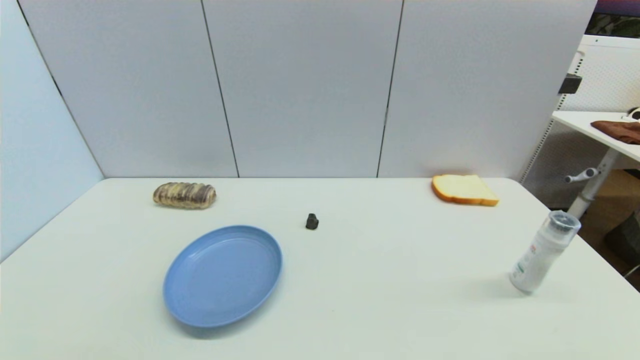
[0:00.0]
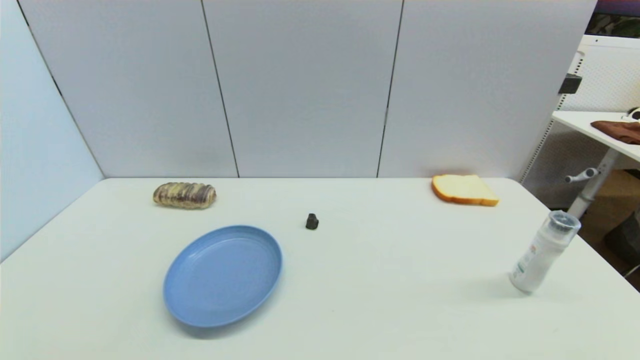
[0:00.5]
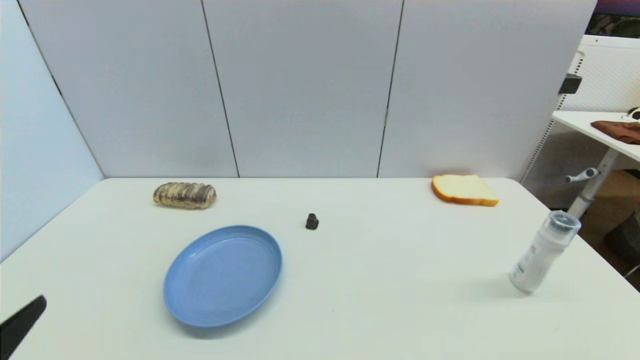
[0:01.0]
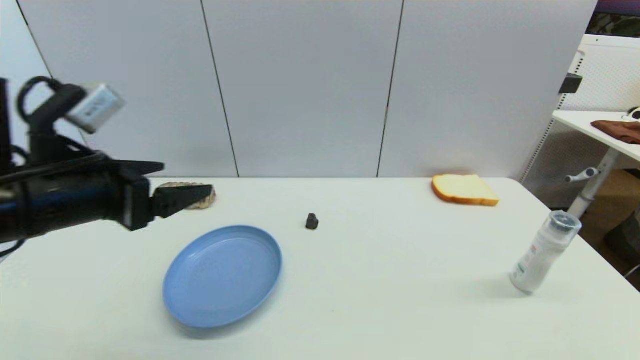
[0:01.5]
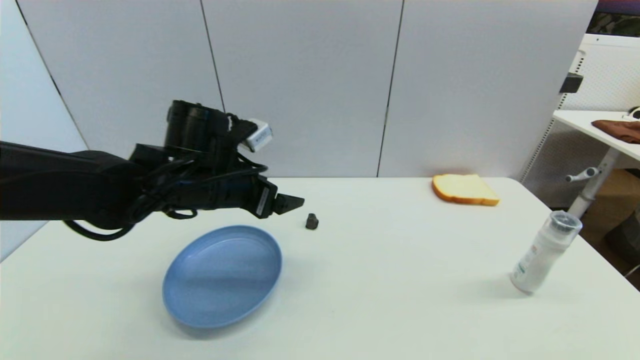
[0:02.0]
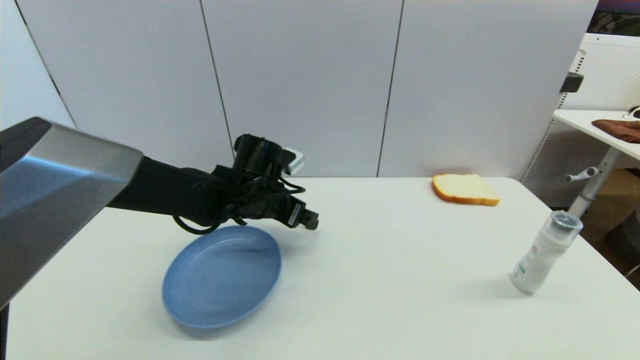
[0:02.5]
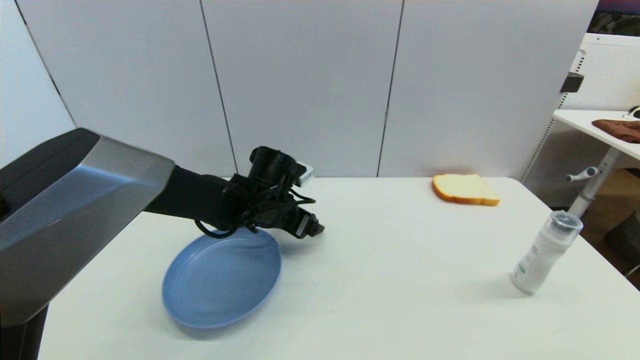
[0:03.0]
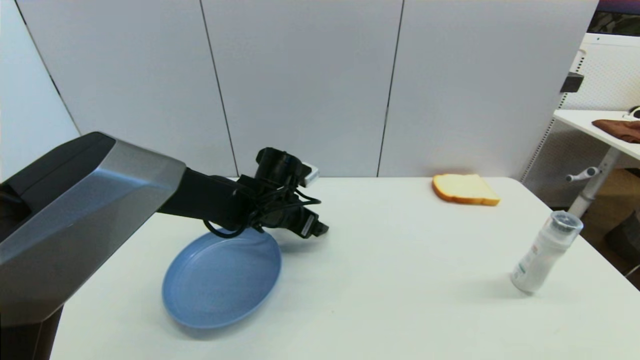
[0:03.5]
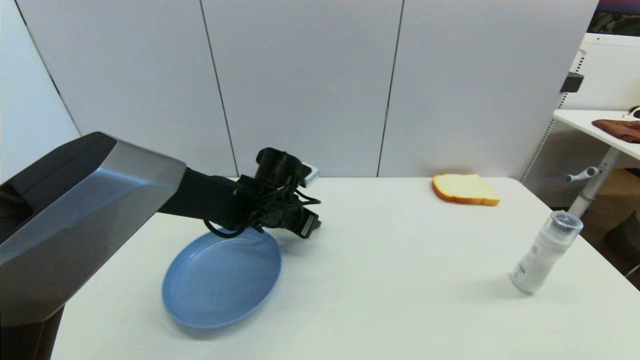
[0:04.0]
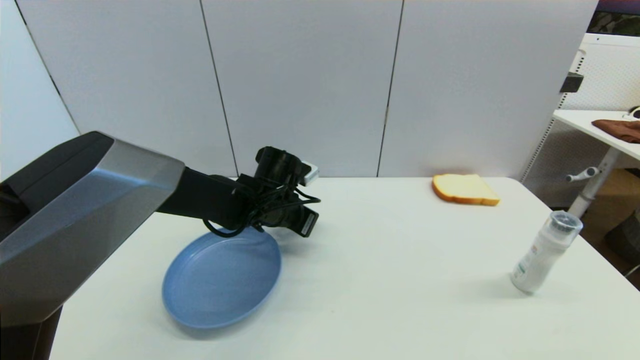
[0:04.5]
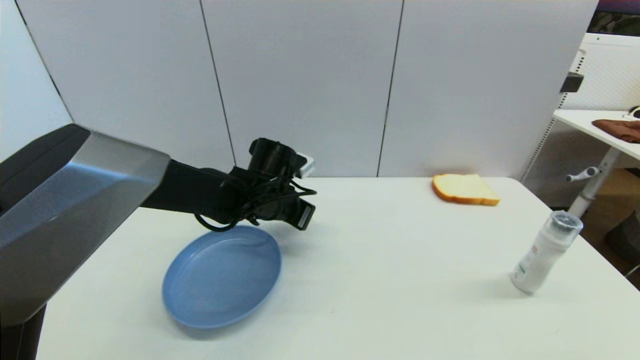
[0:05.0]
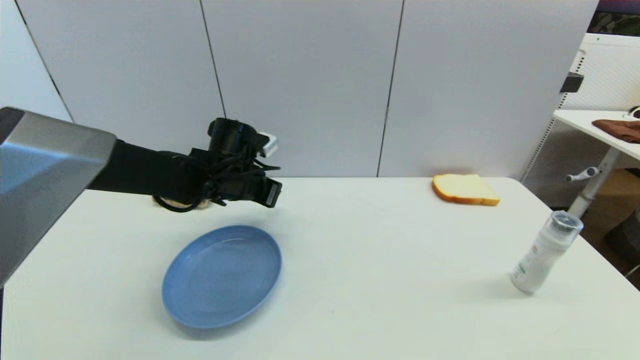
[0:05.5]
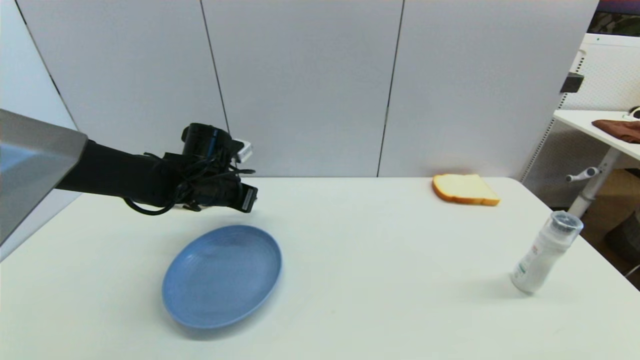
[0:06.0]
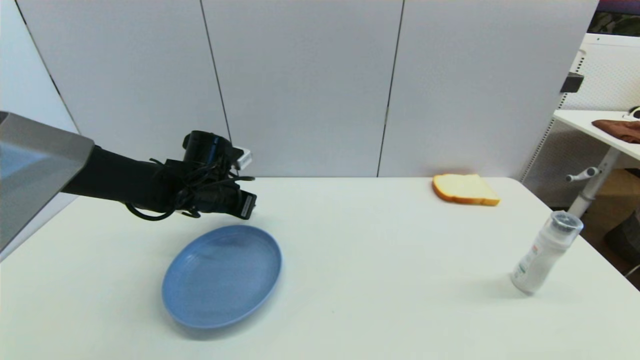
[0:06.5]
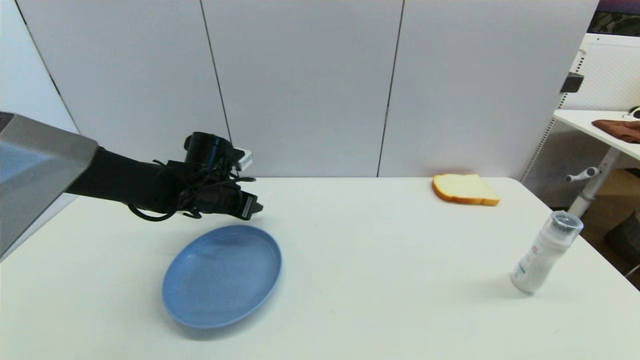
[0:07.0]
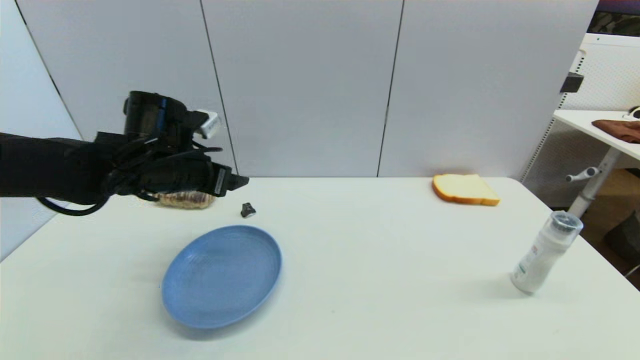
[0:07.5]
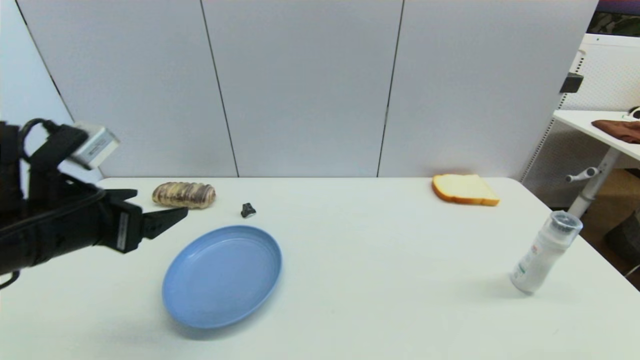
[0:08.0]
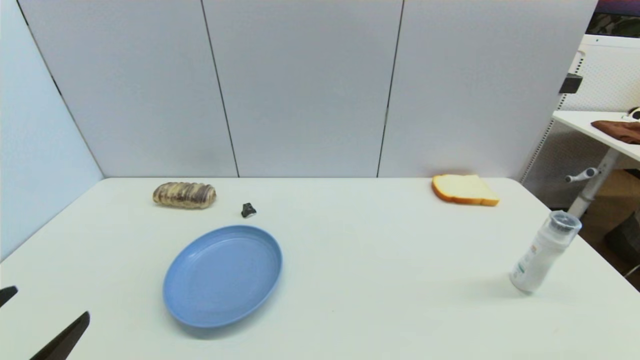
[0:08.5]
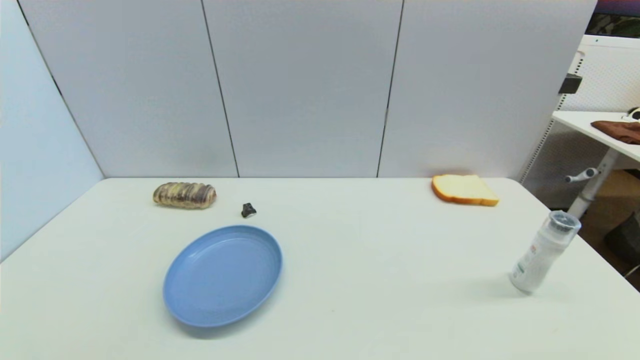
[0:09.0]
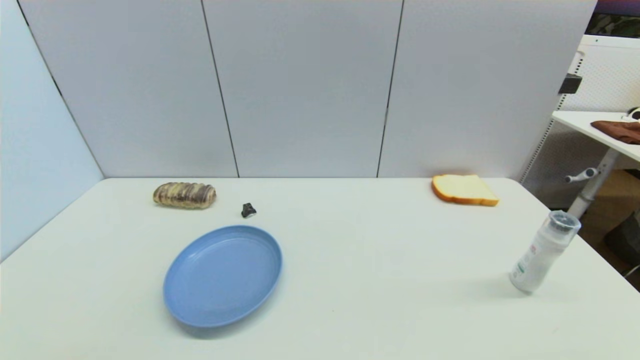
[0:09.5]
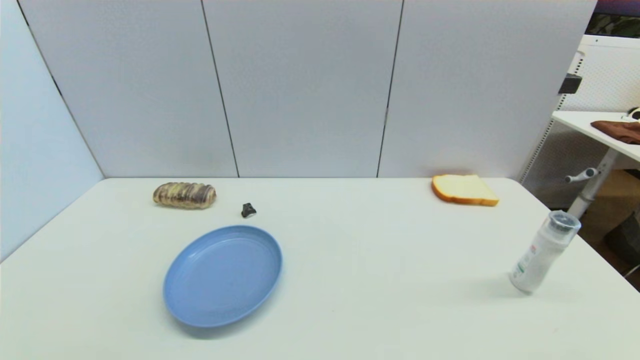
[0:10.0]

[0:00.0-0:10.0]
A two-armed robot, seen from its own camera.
Step, 0:01.0 to 0:04.0: Grasp the coffee capsule with left gripper.
Step, 0:05.0 to 0:07.0: Place the coffee capsule on the table with left gripper.
0:00.0 to 0:02.0: The left gripper heads forward and to the right, covering about 35 cm.
0:02.0 to 0:04.0: The left gripper travels downward, to the right and forward by roughly 15 cm, and closes up.
0:04.0 to 0:06.0: The left gripper heads to the left, covering some 10 cm, and closes.
0:06.0 to 0:08.0: The left gripper is displaced backward and to the left by about 20 cm, and opens its fingers.
0:08.0 to 0:10.0: The left gripper moves backward and downward, approximately 25 cm.
